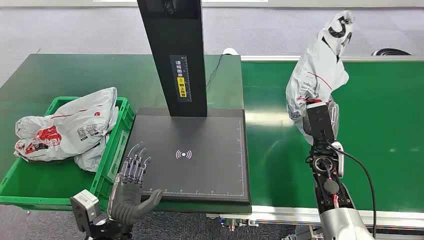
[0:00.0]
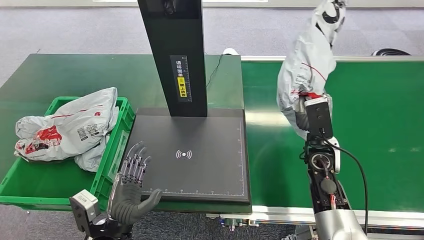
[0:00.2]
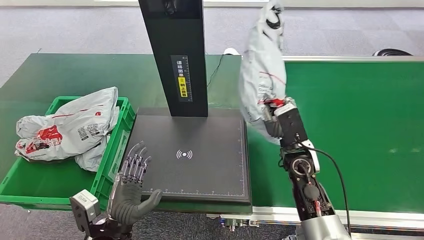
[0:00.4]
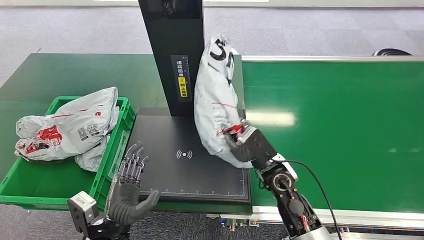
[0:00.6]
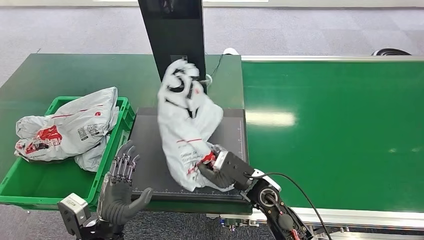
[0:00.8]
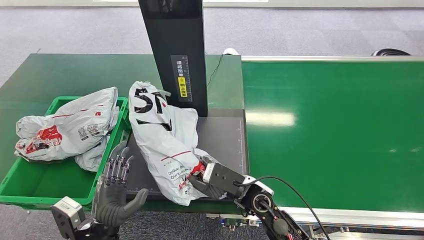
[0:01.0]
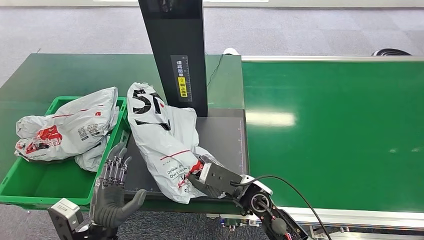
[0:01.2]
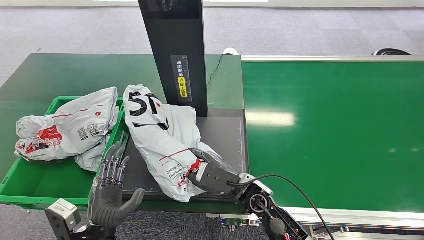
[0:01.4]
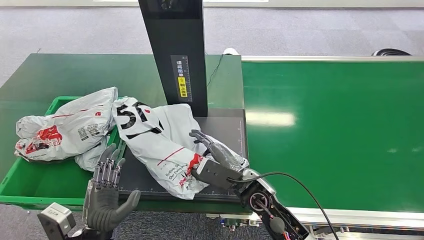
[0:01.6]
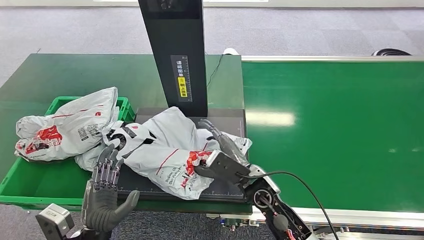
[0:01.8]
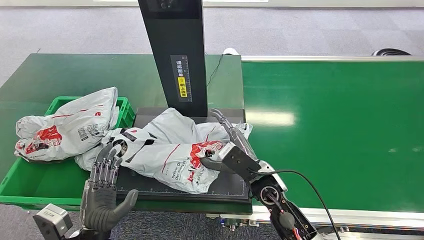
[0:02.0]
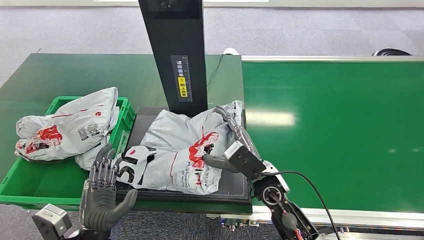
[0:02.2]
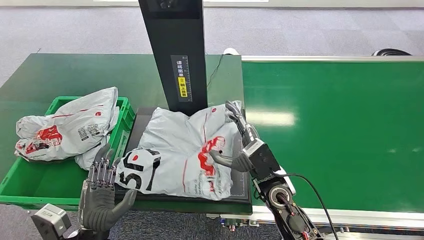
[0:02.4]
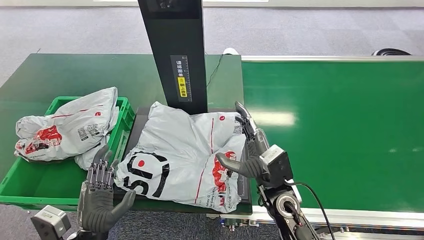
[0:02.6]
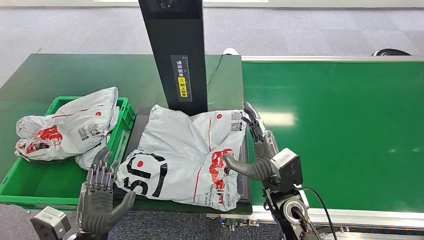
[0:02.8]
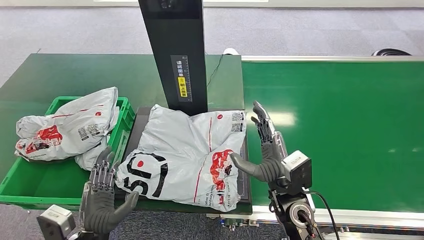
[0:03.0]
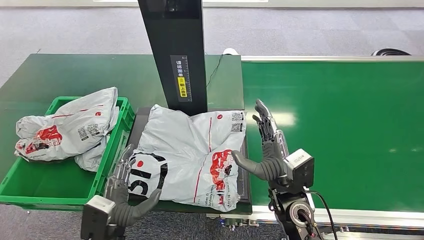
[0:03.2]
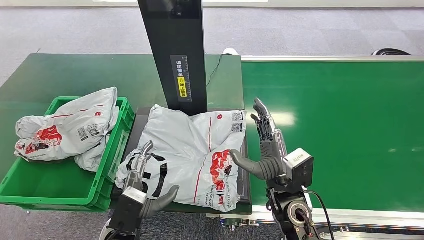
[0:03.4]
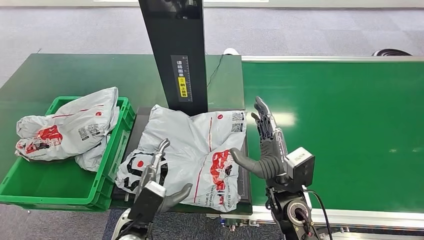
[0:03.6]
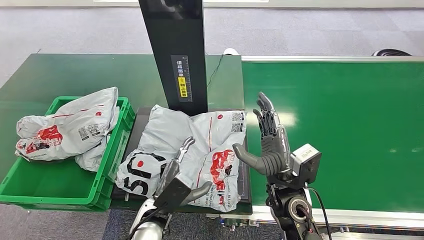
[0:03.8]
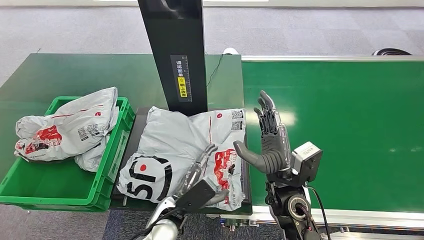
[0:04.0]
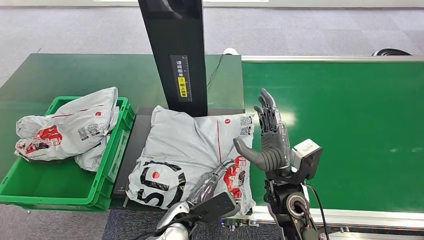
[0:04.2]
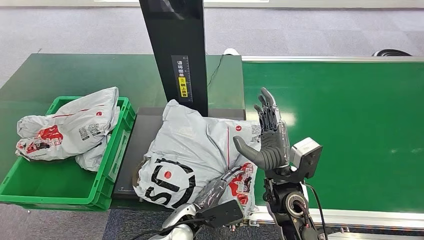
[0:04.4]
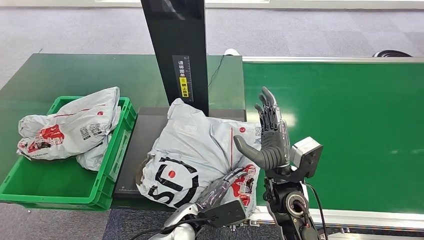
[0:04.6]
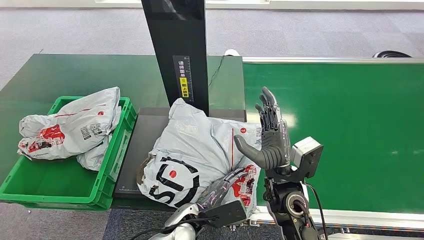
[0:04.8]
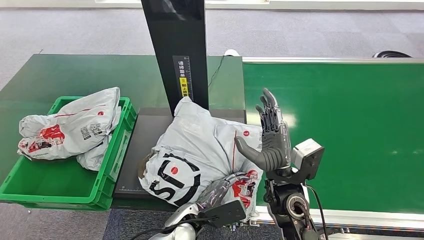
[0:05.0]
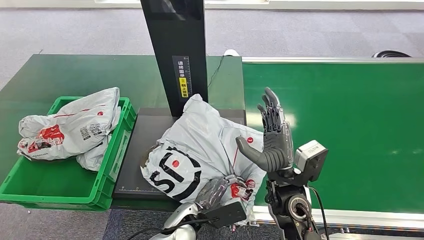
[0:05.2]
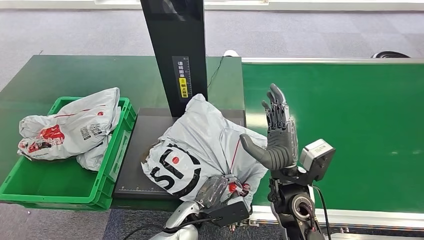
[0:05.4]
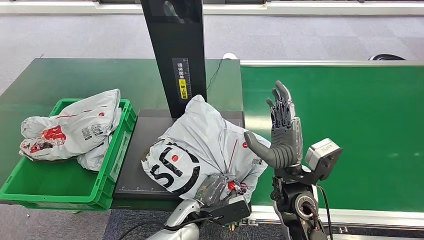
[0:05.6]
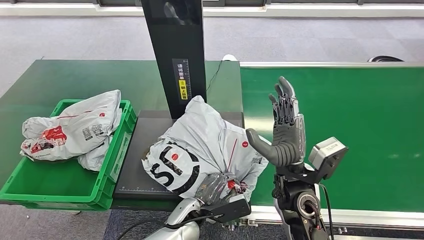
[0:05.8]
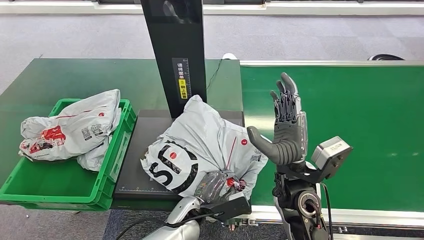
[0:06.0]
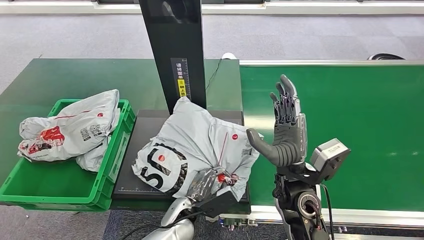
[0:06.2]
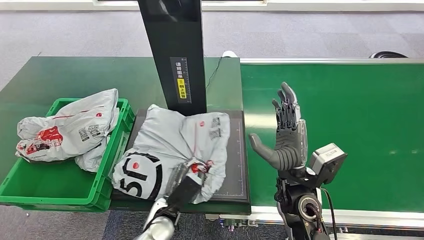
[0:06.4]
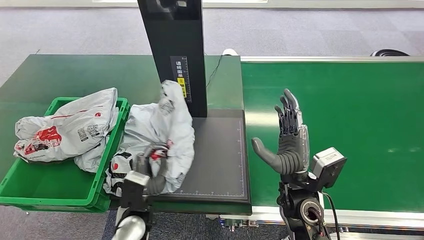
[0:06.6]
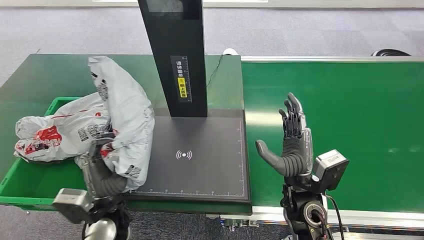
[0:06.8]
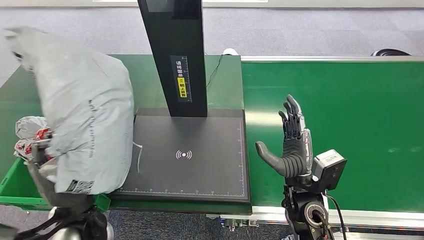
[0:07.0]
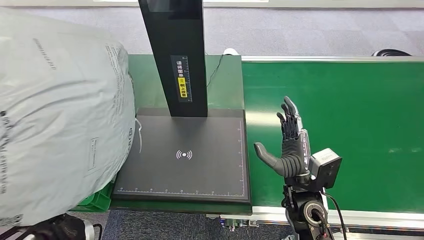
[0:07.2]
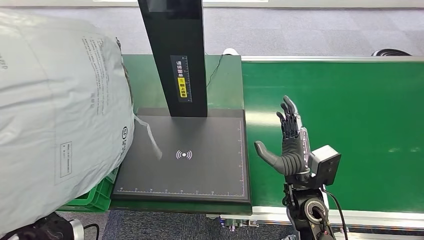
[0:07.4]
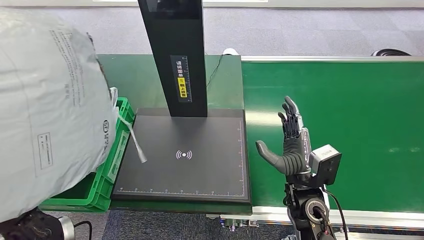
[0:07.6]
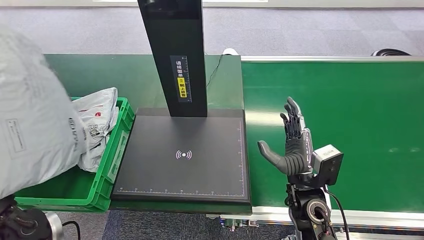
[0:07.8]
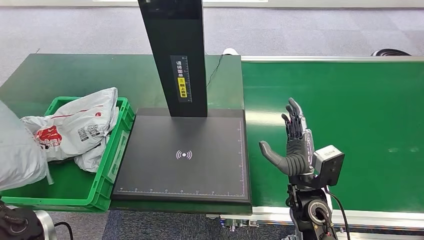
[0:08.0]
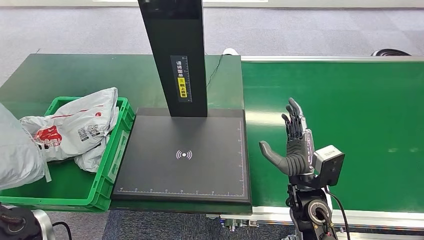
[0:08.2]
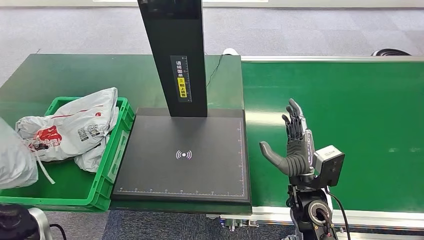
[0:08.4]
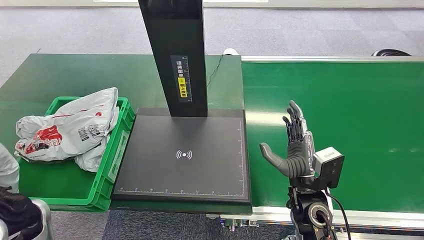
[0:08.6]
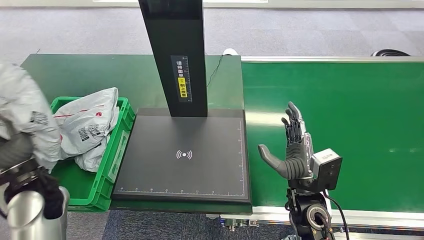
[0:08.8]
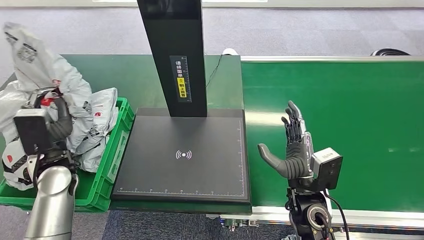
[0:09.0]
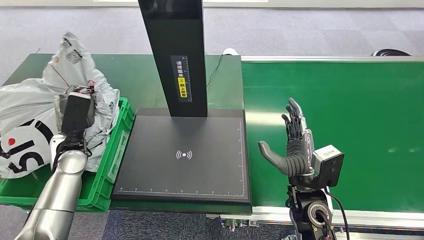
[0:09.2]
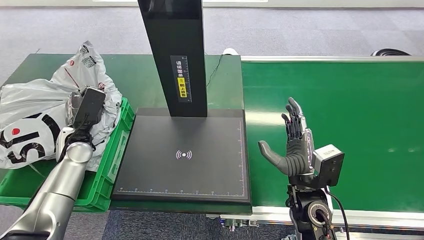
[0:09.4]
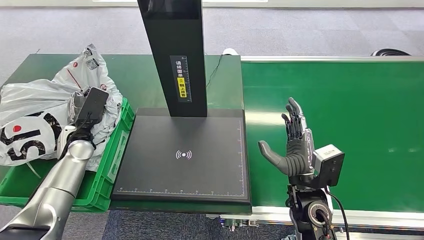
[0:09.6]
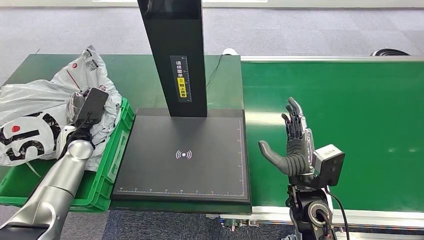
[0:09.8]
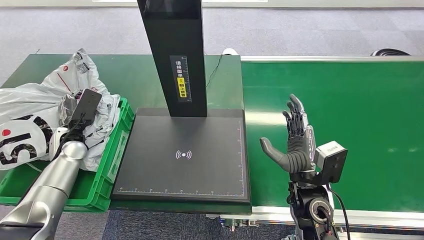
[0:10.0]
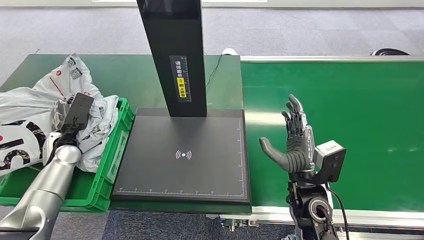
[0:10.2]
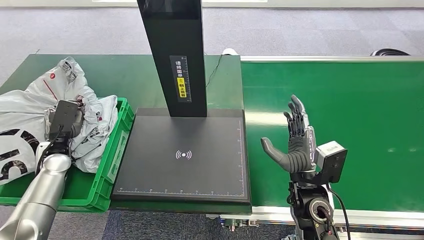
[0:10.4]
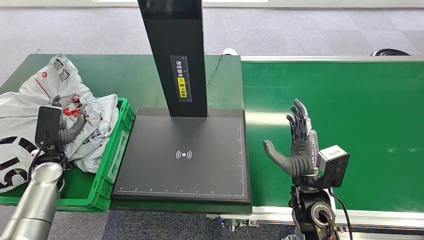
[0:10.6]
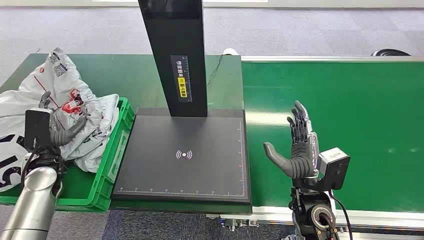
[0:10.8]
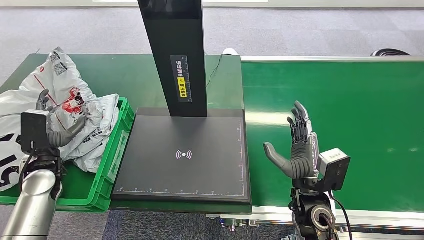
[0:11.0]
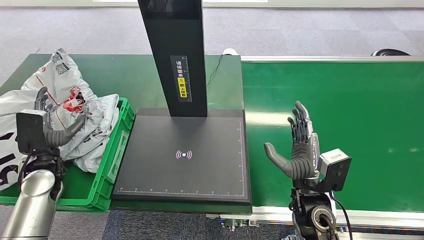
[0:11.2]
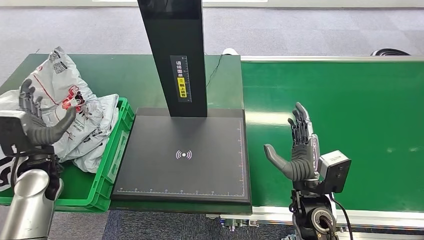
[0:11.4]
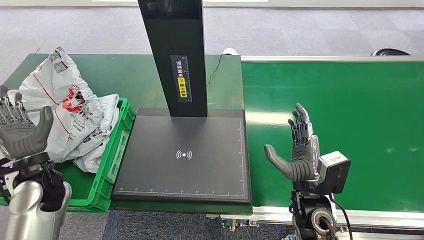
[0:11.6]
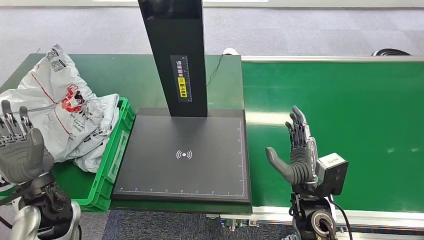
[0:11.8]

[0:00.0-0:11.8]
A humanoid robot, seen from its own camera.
Step, 0:11.6 to 0:11.8: Place the package into the parcel locker.
0:01.4 to 0:03.0: The right hand heads to the right, covering about 5 cm.
0:03.0 to 0:04.4: The left hand goes roughly 20 cm to the right and forward.
0:08.8 to 0:10.4: The left hand heads forward, downward and to the left, covering roughly 15 cm.
0:10.4 to 0:11.8: The left hand goes some 15 cm backward, to the right and upward.
